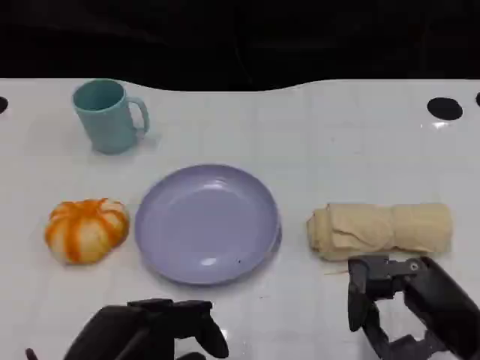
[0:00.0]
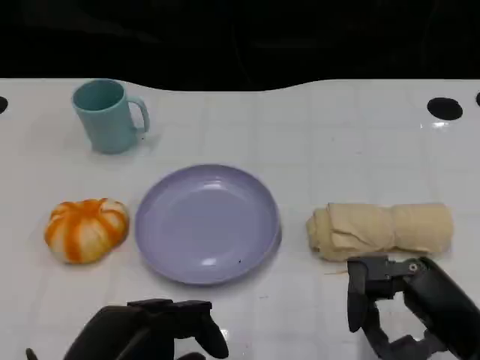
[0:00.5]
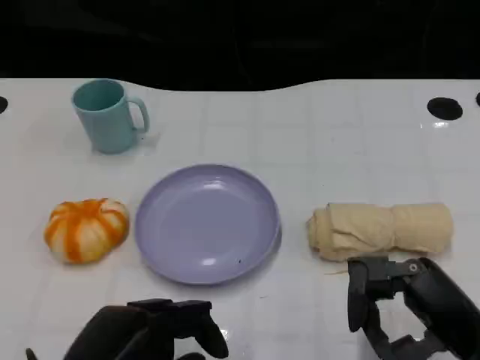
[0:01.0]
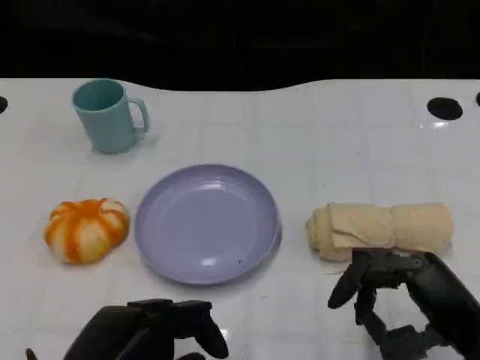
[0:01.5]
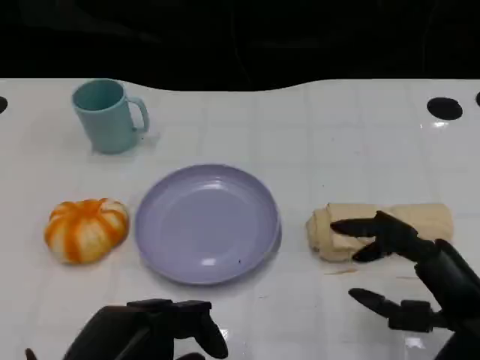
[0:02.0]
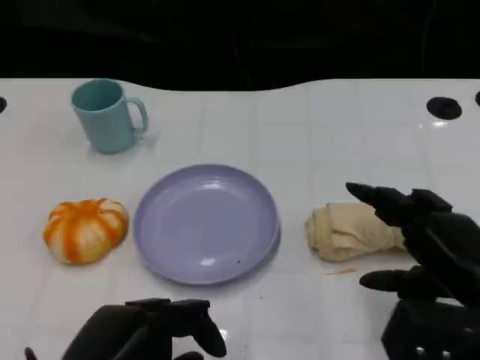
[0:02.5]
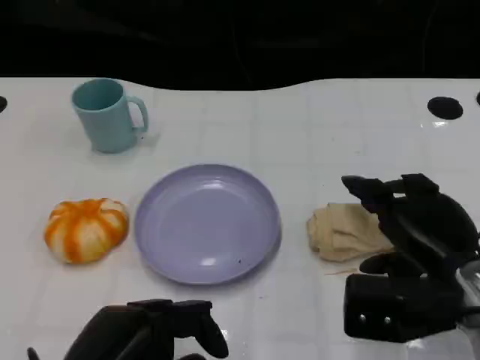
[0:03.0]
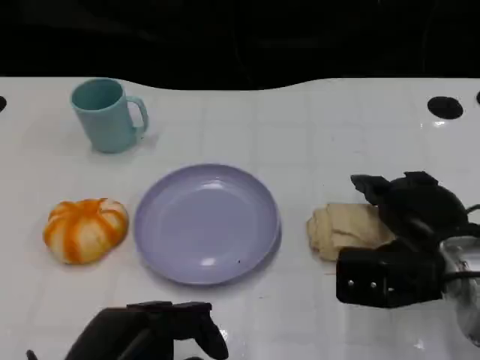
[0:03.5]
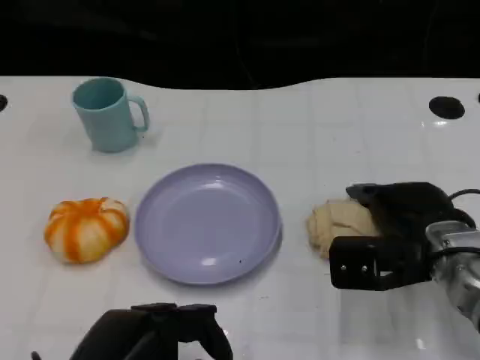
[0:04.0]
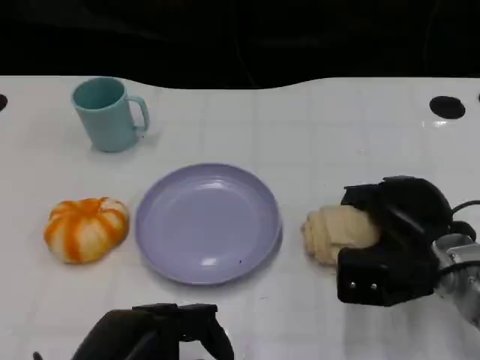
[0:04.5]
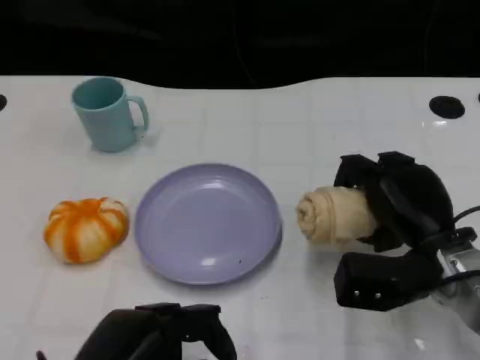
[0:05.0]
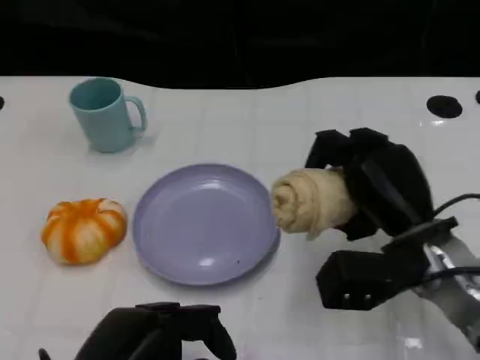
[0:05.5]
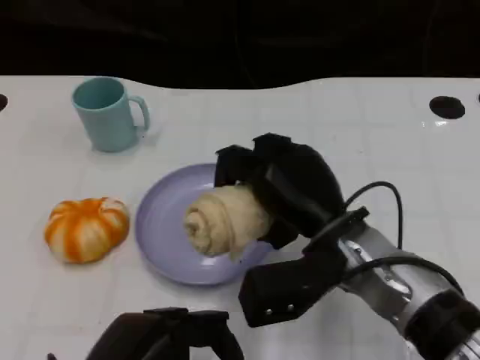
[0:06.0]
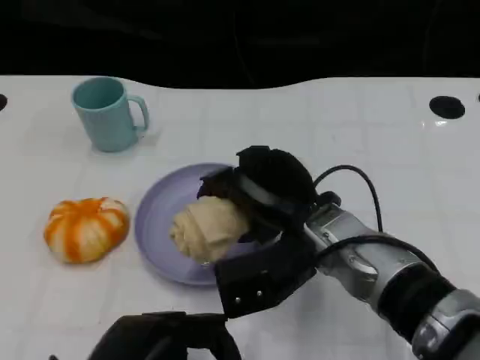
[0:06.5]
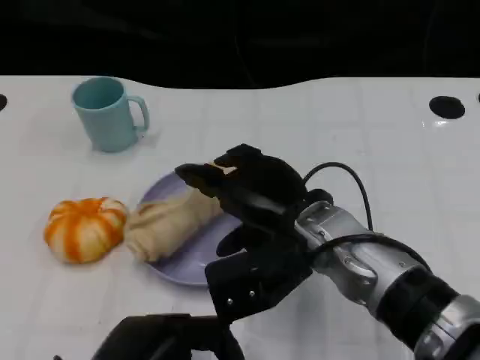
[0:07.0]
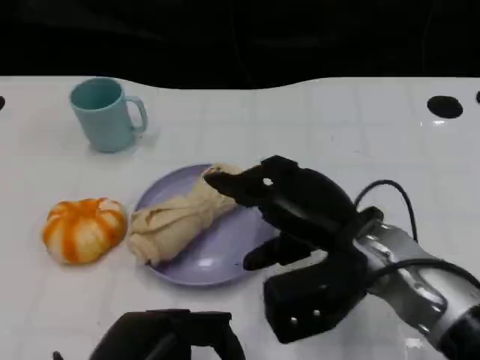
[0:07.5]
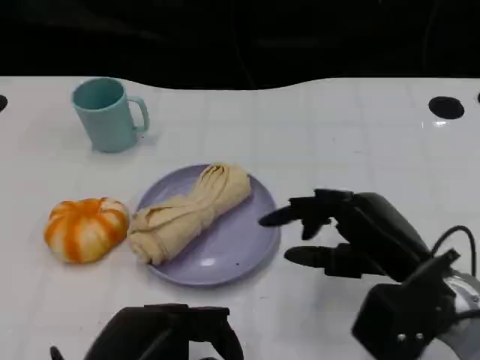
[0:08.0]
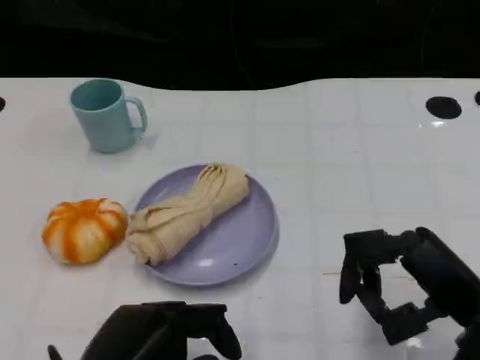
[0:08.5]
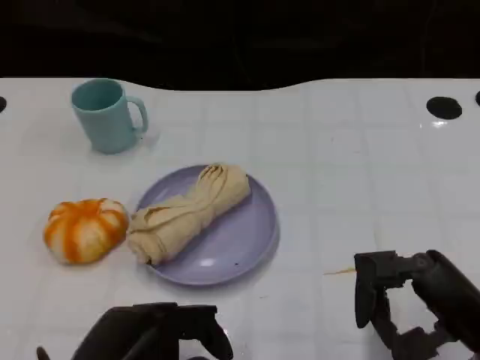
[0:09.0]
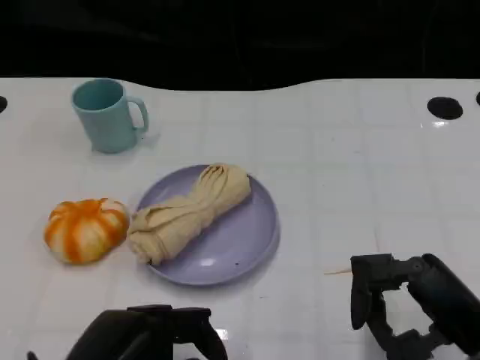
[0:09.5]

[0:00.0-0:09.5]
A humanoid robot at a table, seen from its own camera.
Task of the whole recording: Grasp the towel on the left side of the plate with the left hand and place it into the plate.
0:00.0 to 0:02.0: The hands move only a little.
0:02.0 to 0:04.0: The right hand is displaced forward by roughly 10 cm.
0:07.5 to 0:09.5: The right hand is displaced to the right and backward by roughly 15 cm.
